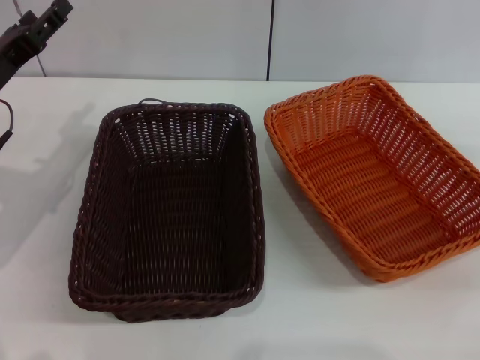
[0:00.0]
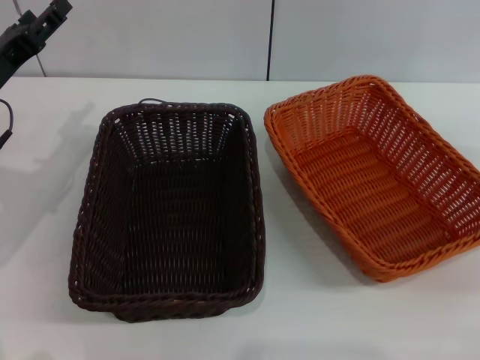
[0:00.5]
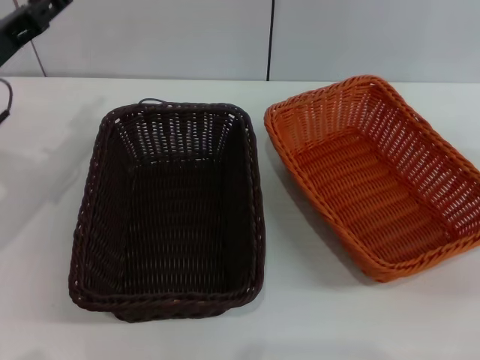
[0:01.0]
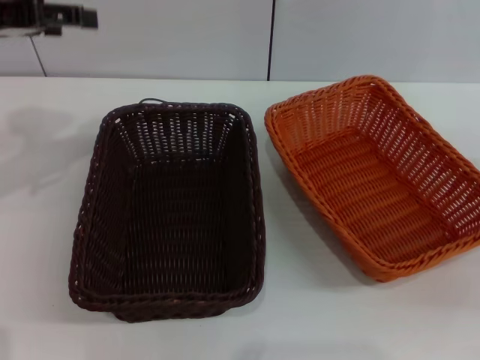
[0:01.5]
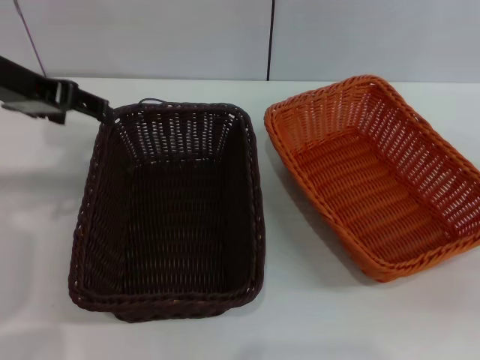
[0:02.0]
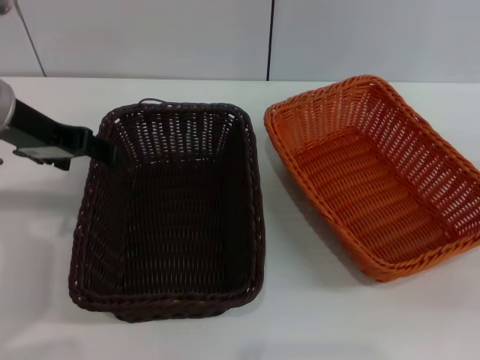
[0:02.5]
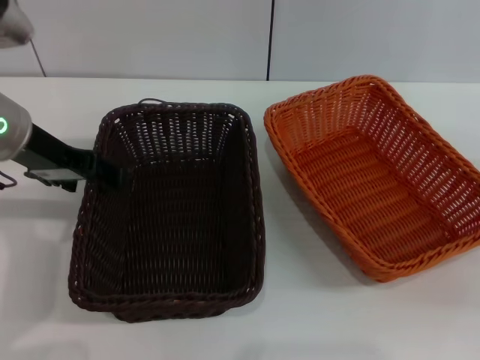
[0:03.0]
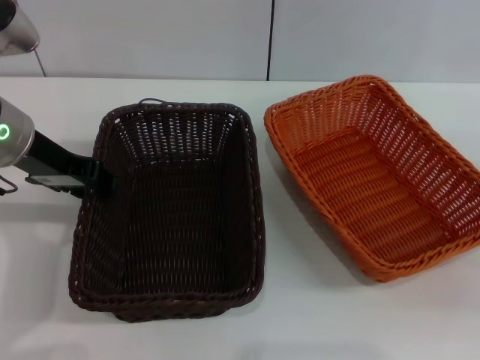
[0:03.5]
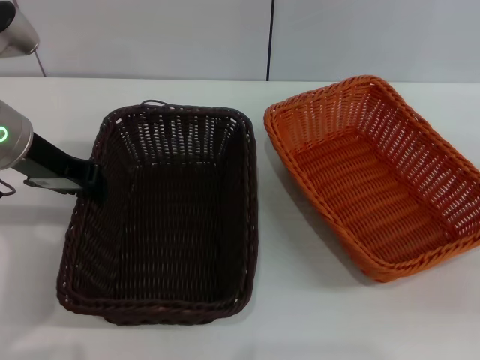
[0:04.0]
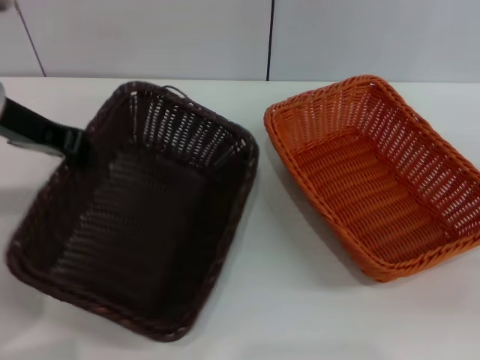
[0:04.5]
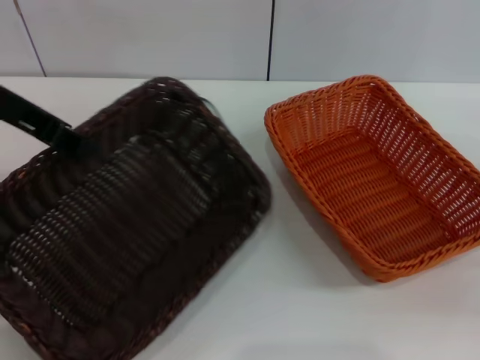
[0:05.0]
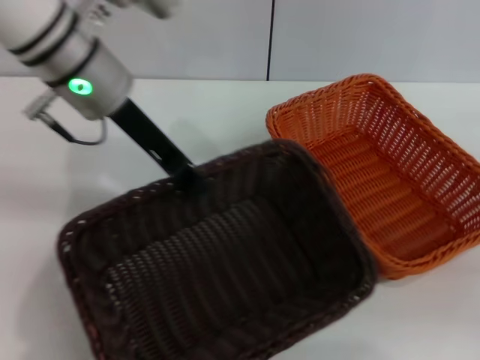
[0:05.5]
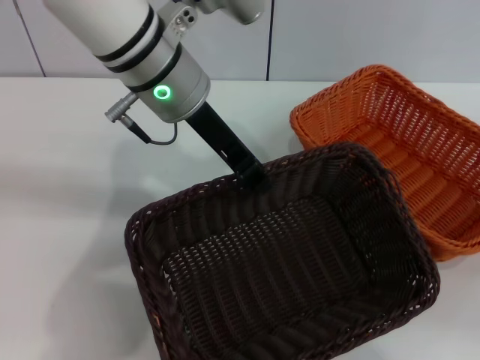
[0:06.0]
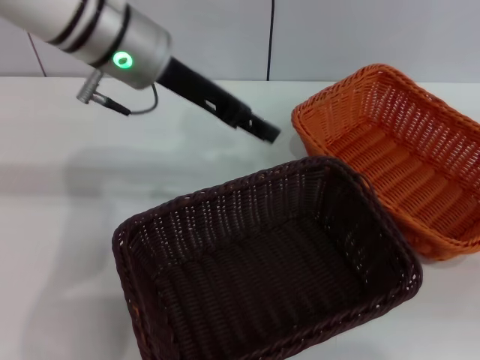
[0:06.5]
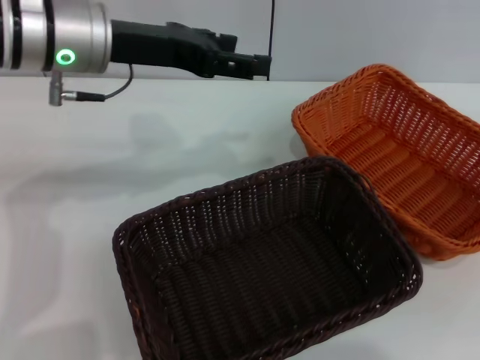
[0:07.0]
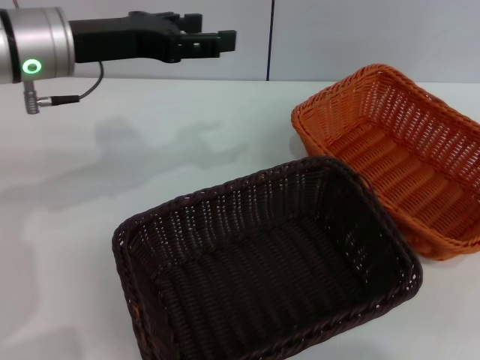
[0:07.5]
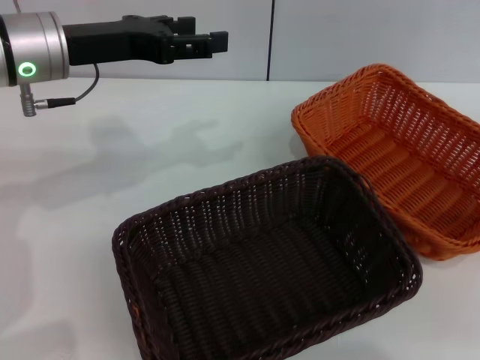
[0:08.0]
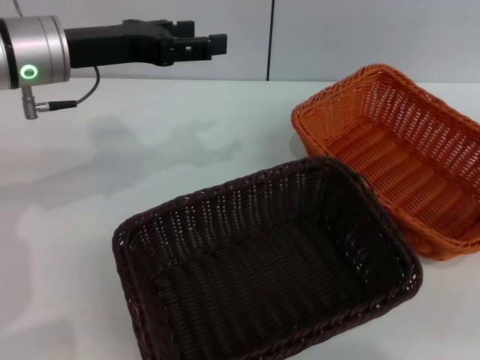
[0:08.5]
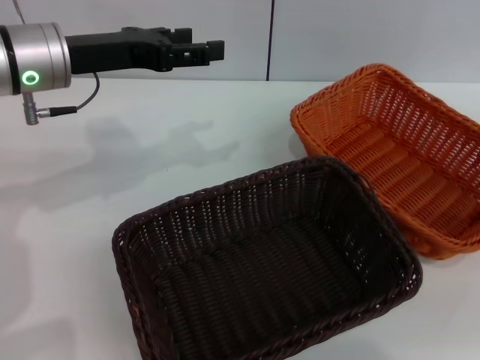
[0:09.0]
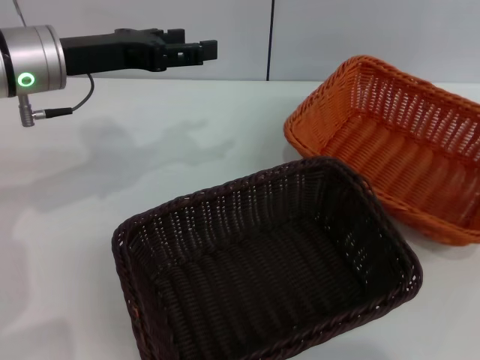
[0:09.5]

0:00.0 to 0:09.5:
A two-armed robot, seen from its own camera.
Step, 0:00.0 to 0:04.0: Pick up the dark basket with the left gripper.
Step, 0:04.5 to 0:06.0: Place the dark basket in the center of view with the left gripper.
0:00.0 to 0:02.0: The left gripper travels upward by roughly 15 cm.
0:02.0 to 0:04.0: The left gripper goes roughly 5 cm downward, and closes up.
0:04.0 to 0:05.5: The left gripper is displaced to the right by roughly 10 cm.
0:05.5 to 0:07.5: The right gripper travels upward by some 20 cm, while the left gripper shifts by some 5 cm, and opens up.
0:07.5 to 0:09.5: The right gripper heads downward, covering some 10 cm, and closes up.

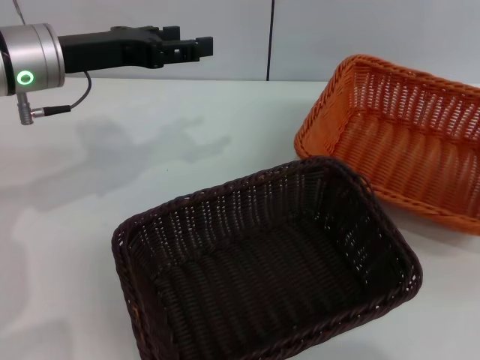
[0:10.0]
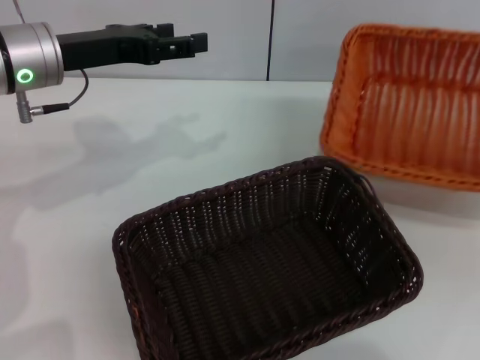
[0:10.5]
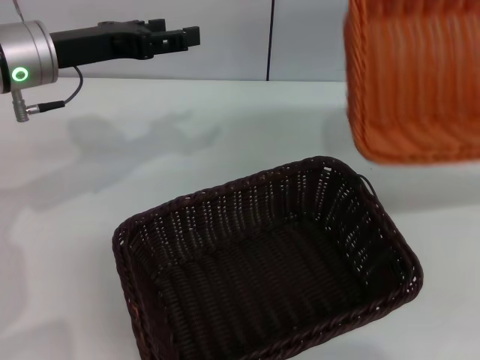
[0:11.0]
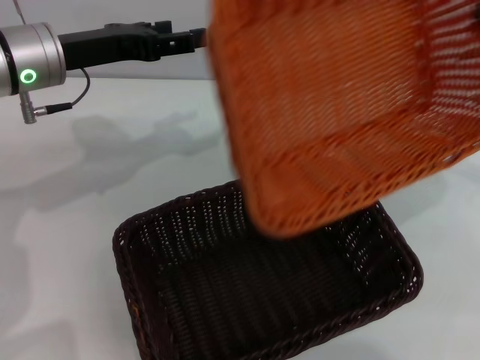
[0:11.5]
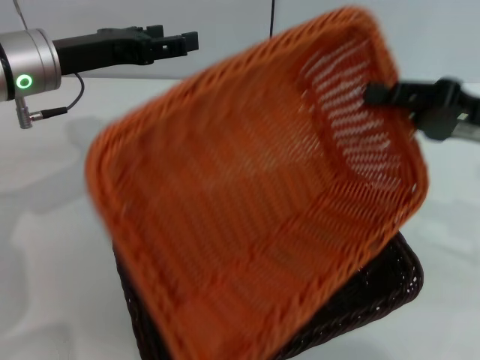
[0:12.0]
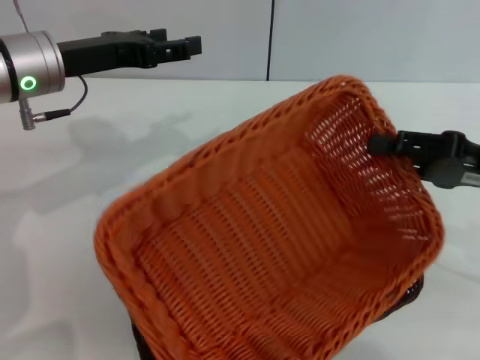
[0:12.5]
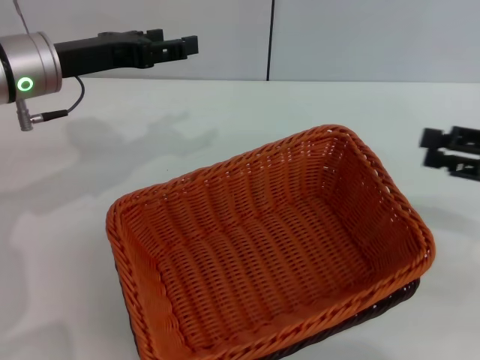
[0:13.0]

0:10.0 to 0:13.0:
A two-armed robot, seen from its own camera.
Step, 0:11.0 to 0:12.5: Place the light basket on the dark basket with the right gripper.
0:10.0 to 0:11.5: The right gripper goes about 10 cm to the left and upward.
0:11.5 to 0:13.0: The right gripper is displaced downward by approximately 5 cm, and opens its fingers.
